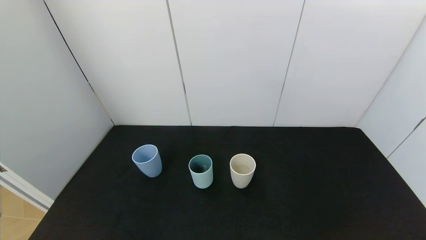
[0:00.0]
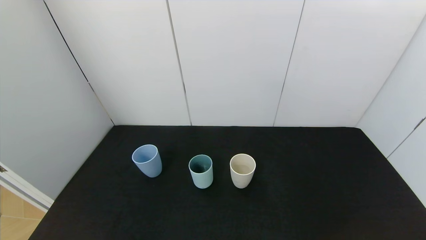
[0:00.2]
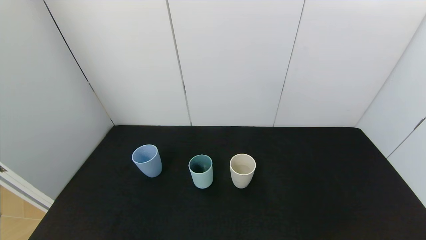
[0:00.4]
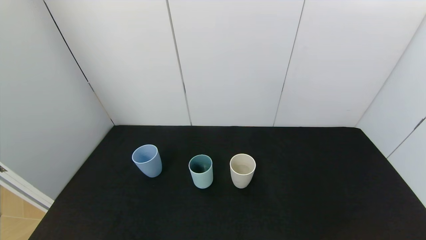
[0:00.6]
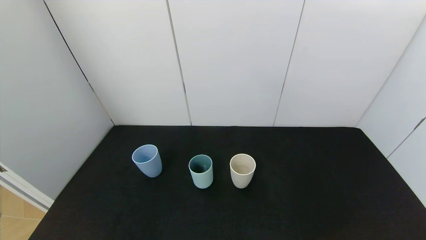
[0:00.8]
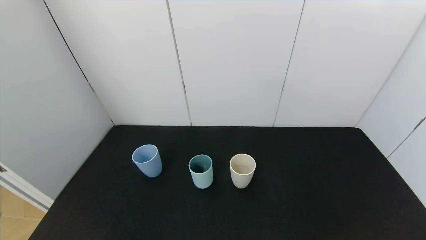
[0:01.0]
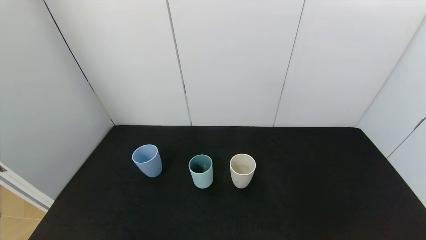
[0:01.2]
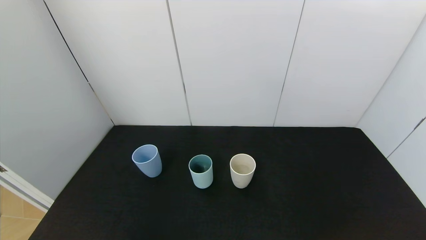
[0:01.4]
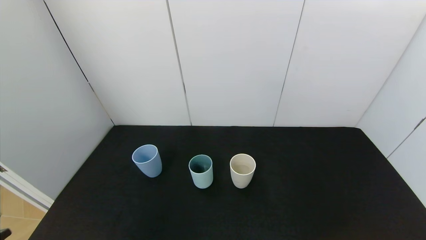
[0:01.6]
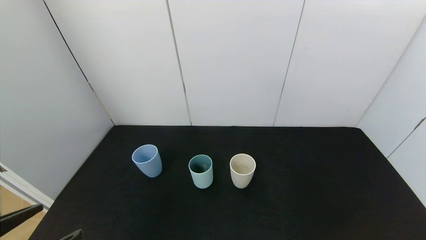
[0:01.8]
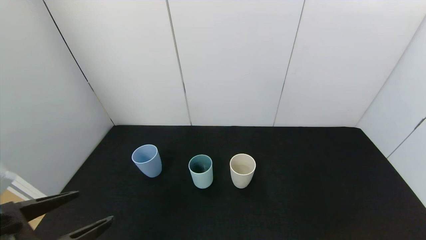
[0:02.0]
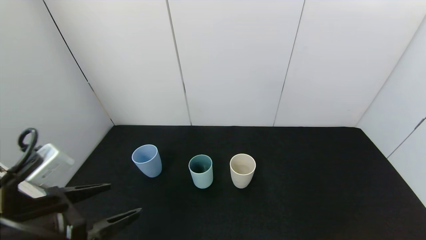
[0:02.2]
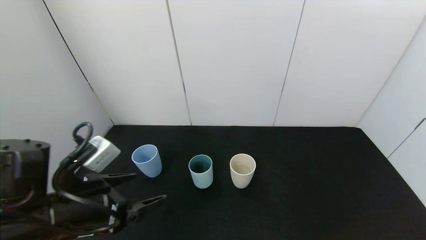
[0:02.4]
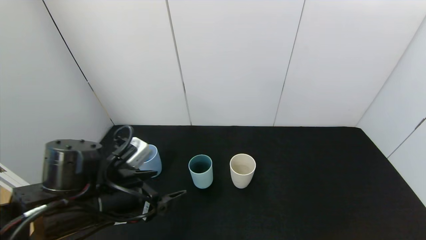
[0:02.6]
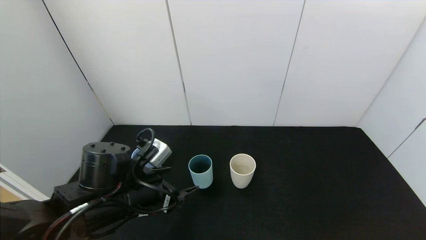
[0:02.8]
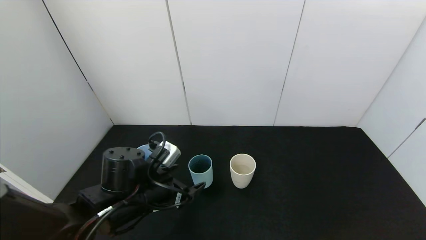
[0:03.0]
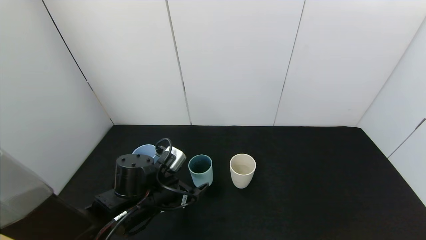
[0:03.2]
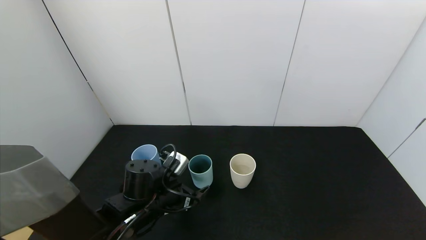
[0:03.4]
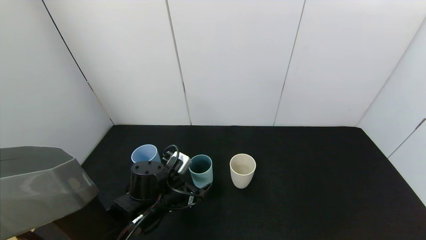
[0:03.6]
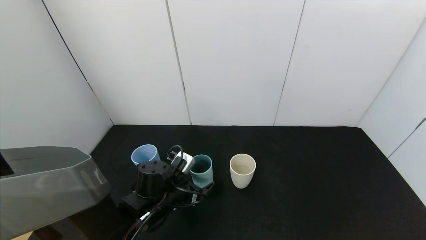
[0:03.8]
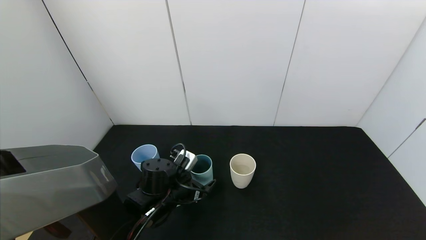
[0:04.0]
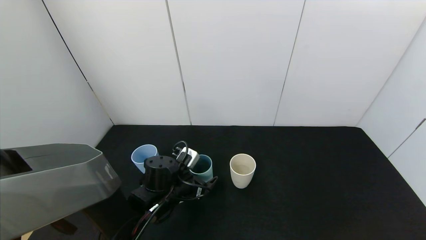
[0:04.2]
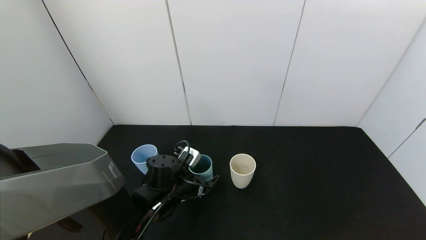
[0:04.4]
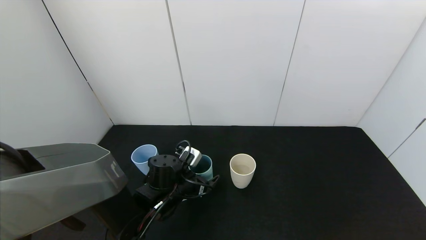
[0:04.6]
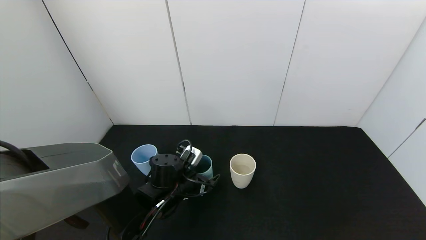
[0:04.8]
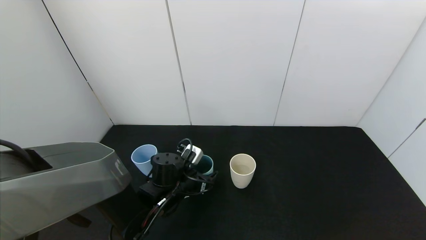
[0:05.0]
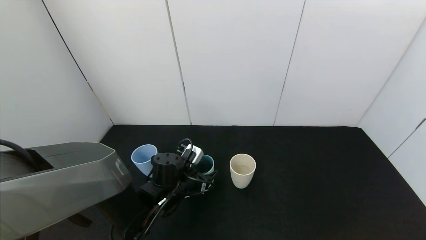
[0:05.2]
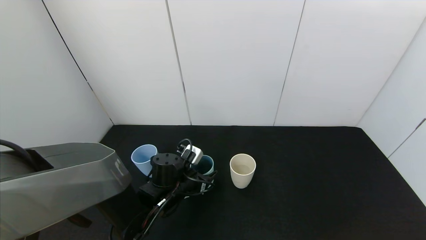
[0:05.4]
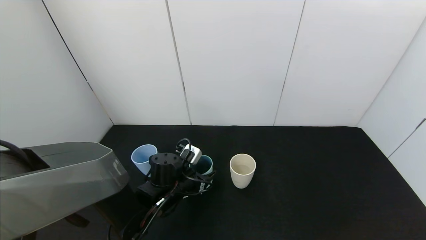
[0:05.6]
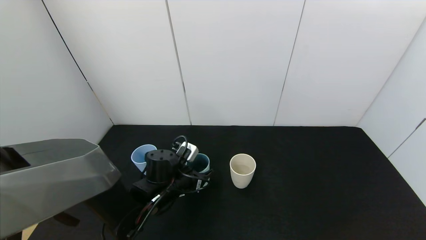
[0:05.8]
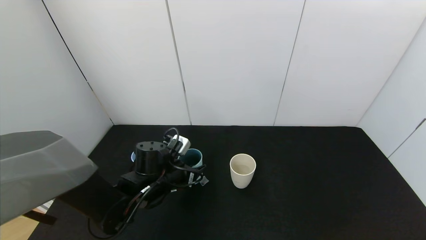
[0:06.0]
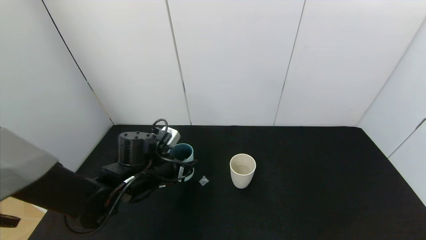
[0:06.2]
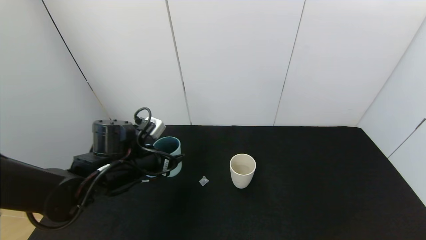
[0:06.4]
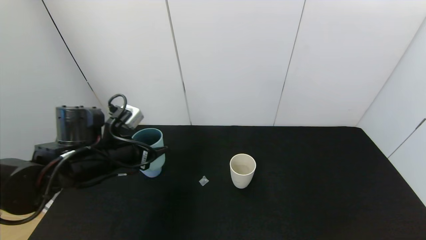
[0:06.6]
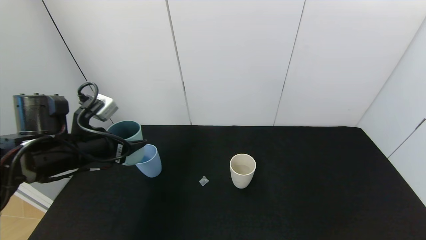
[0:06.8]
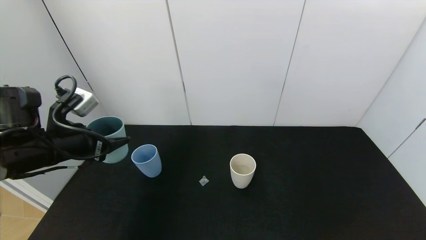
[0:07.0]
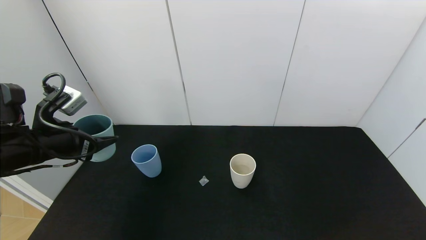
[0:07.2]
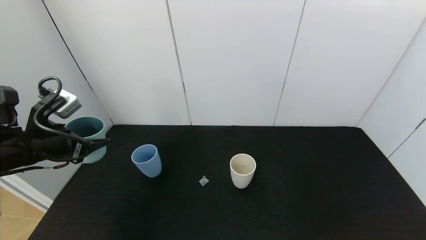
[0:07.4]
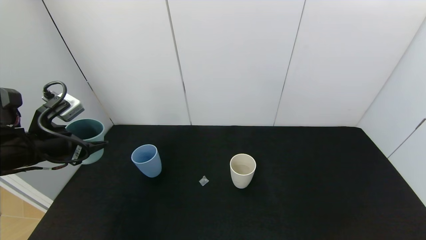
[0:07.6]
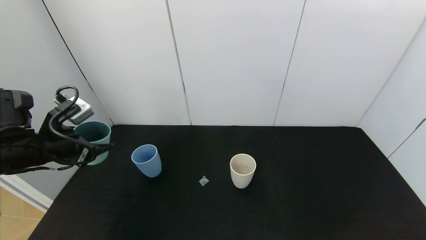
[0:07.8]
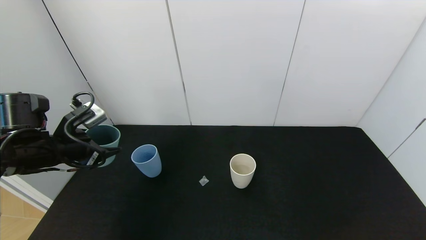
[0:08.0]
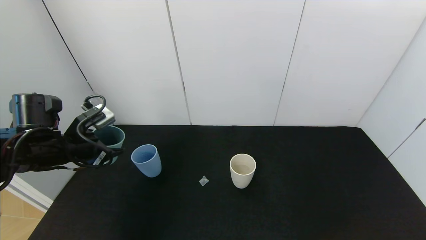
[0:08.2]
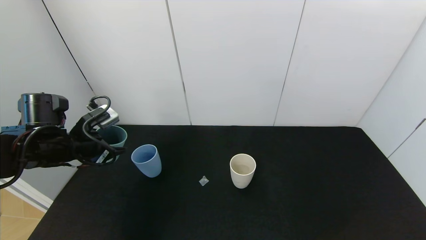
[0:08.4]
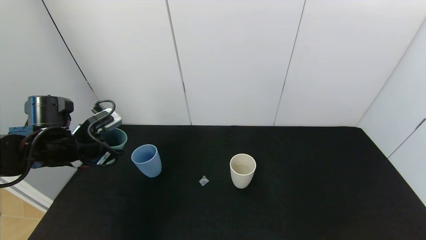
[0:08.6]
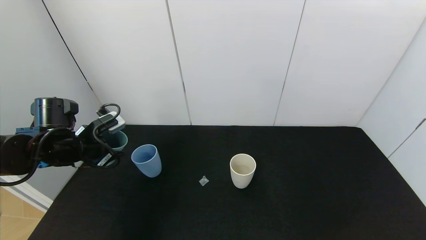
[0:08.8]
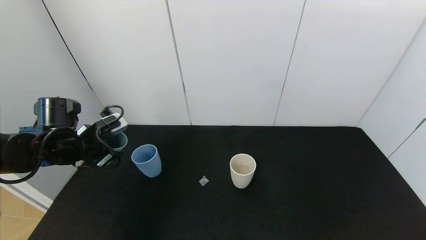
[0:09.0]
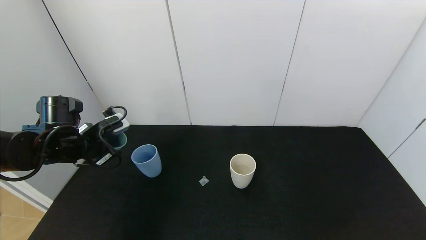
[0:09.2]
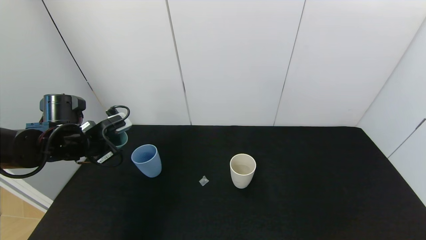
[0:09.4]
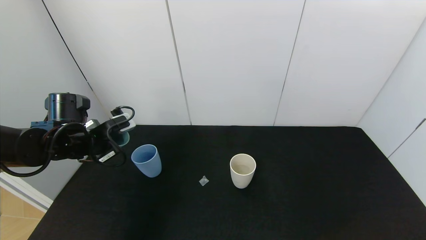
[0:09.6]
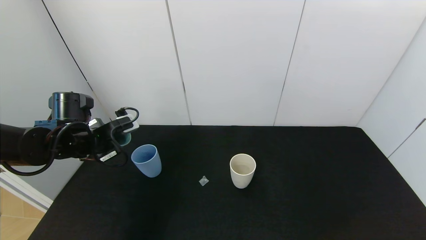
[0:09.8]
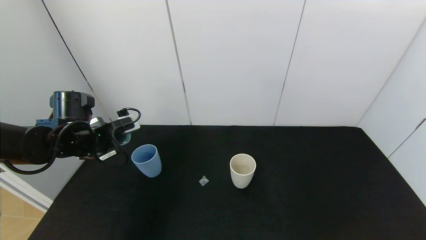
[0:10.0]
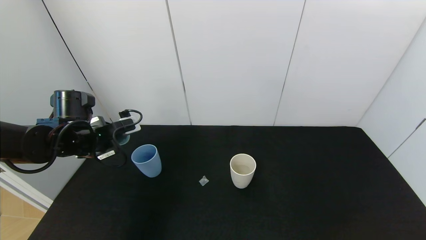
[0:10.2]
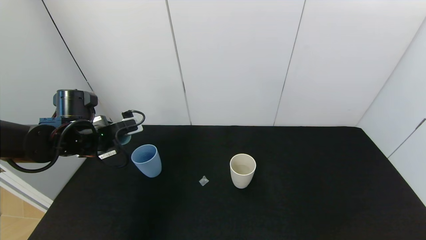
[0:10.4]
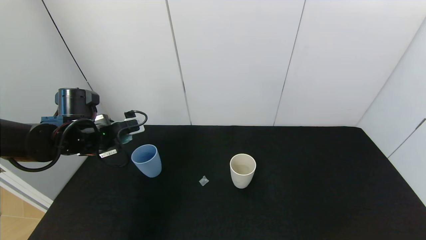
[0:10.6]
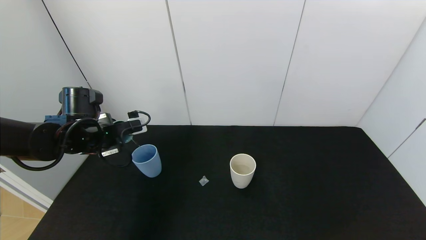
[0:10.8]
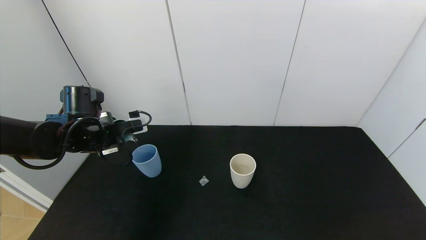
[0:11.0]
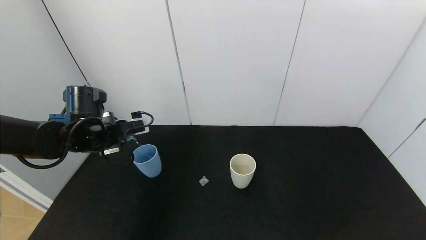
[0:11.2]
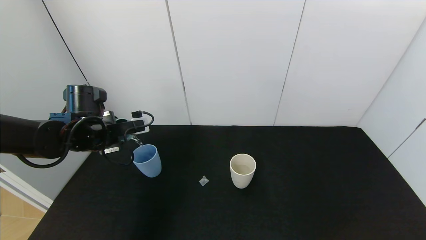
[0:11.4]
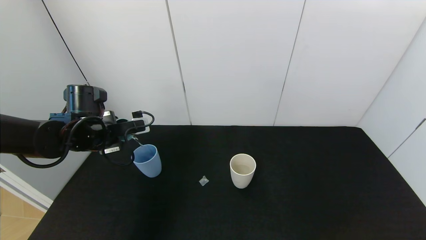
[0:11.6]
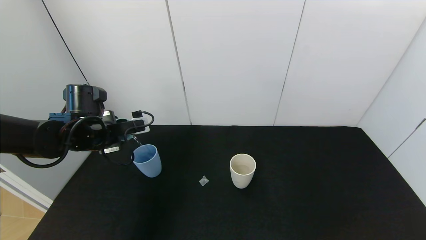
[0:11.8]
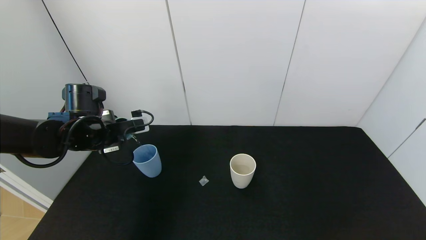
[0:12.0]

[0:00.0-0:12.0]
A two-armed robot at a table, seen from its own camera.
Task of the whole recording: use the gripper to pour the water into the other two cups on black table.
Step, 0.0 to 6.0 s: Pick up the green plastic cup with left gripper.
1.6 to 3.0 s: The left gripper heads forward and to the right, covering approximately 25 cm.
3.0 to 4.4 s: The left gripper goes some 10 cm downward and forward.
4.4 to 6.0 s: The left gripper closes.
6.0 to 7.6 s: The left gripper moves to the left and upward, about 25 cm.
7.6 to 9.0 s: The left gripper shifts approximately 5 cm forward.
10.4 to 12.0 s: The grippers move only a little.

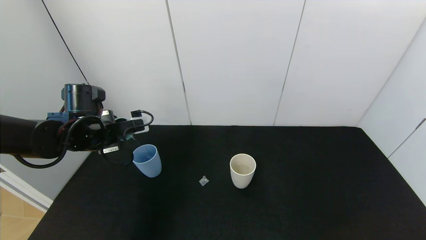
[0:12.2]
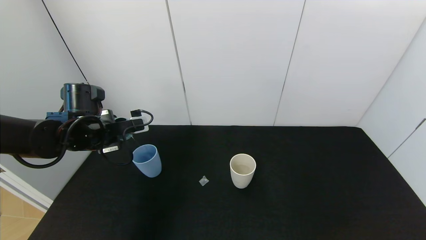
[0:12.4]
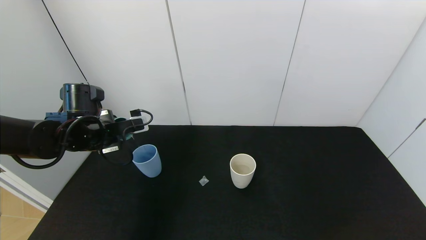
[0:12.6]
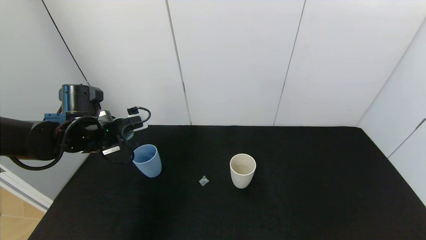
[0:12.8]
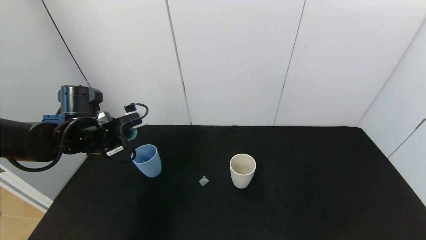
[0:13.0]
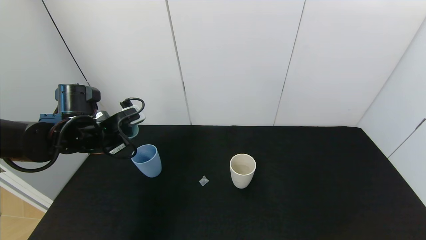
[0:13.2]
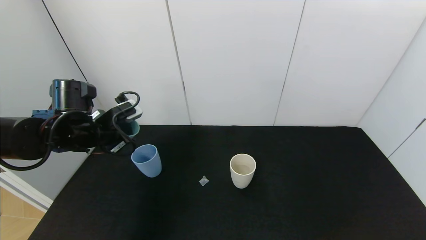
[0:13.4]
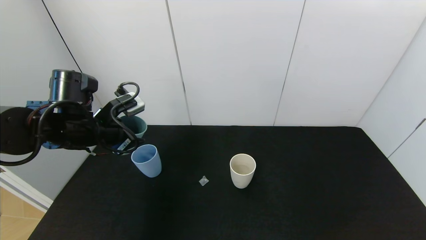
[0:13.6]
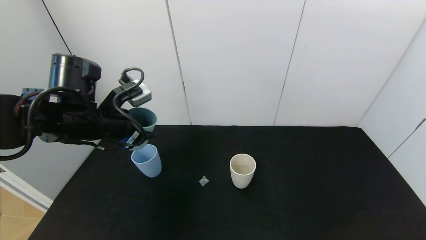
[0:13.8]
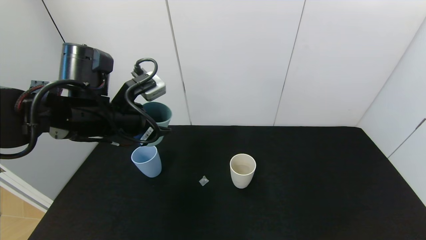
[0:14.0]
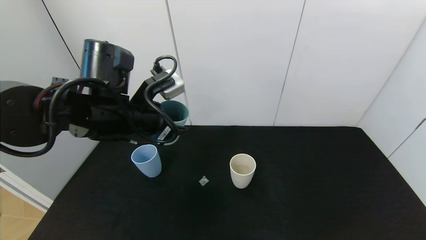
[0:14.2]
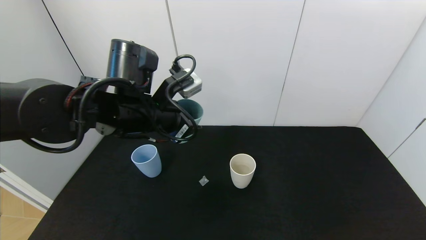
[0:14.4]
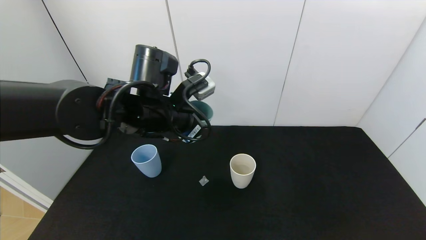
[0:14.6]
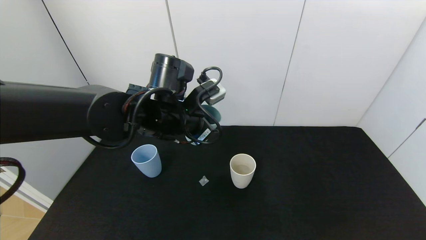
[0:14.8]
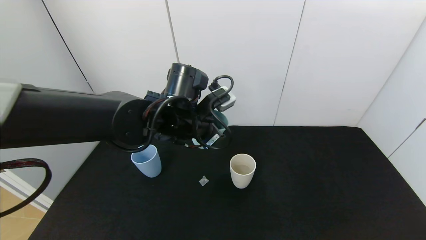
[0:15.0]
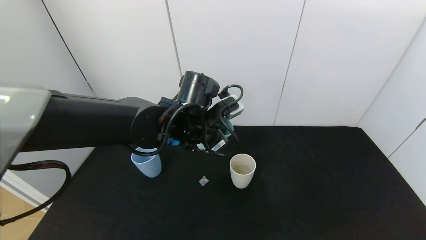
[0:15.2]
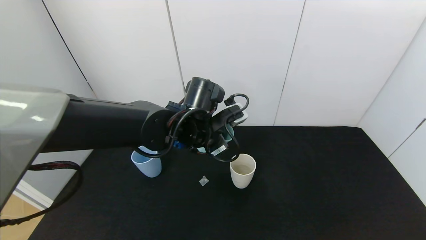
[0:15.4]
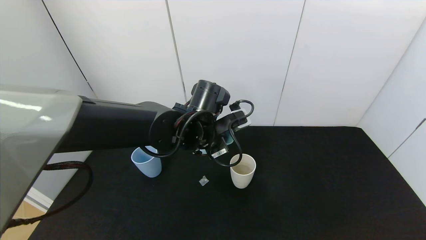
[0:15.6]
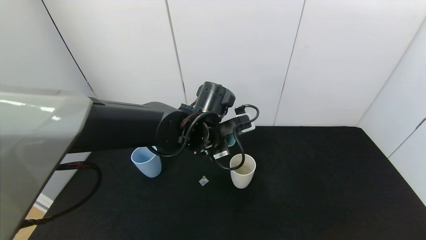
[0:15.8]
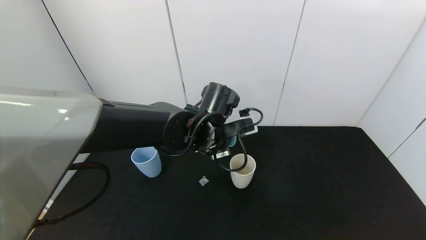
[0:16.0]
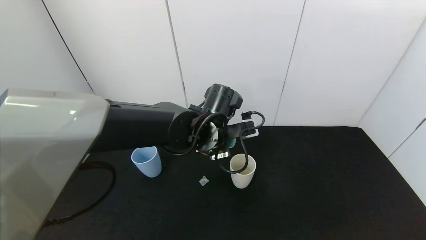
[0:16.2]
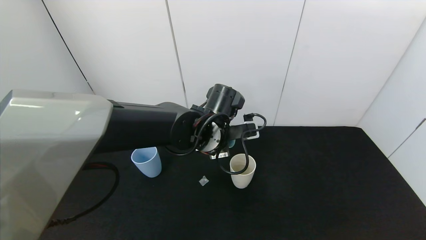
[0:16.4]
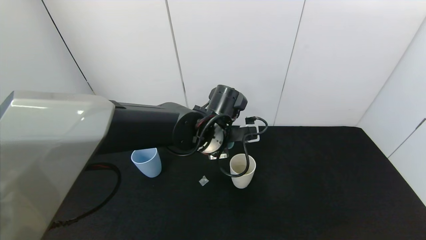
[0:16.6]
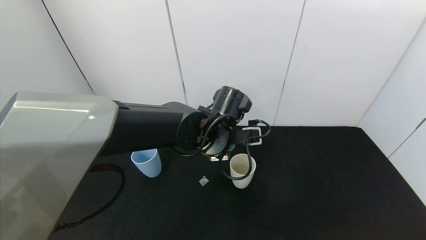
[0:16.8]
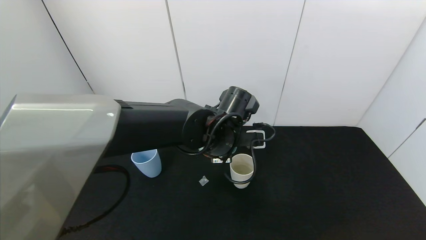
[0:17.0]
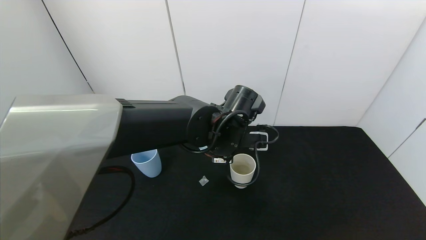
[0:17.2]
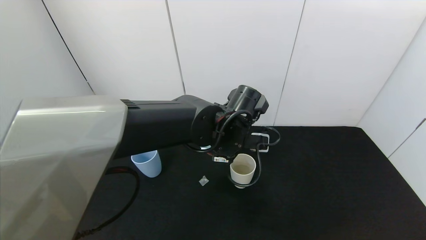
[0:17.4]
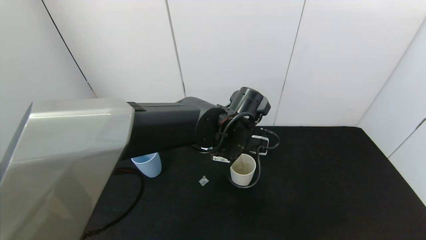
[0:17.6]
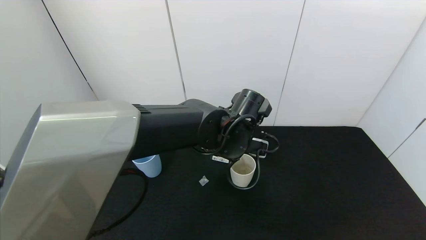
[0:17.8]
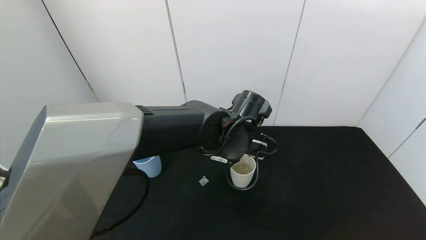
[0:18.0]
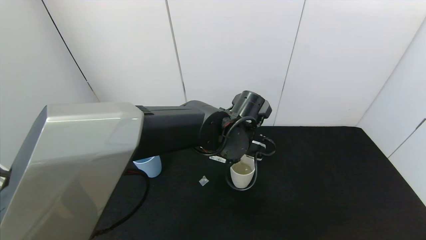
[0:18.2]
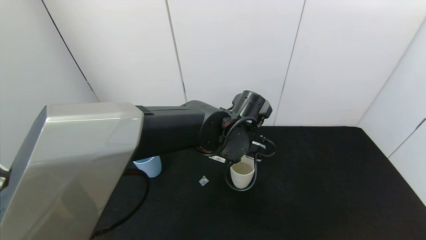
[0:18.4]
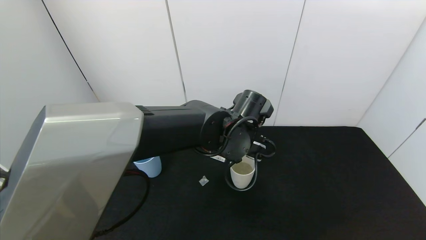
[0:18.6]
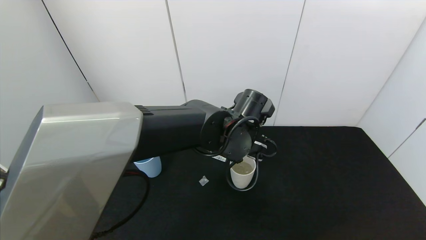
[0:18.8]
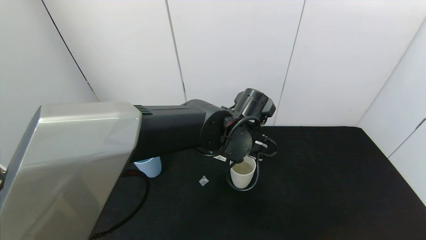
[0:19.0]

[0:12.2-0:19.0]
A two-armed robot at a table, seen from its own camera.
Task of the whole recording: use the gripper to pour the water into the other two cups on black table.
12.2 to 13.6 s: The left gripper changes place by approximately 5 cm.
13.6 to 15.0 s: The left gripper shifts about 20 cm to the right.
15.0 to 16.2 s: The left gripper shifts by approximately 5 cm.
17.6 to 19.0 s: There are only small adjustments of the grippers.
